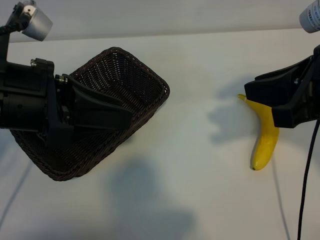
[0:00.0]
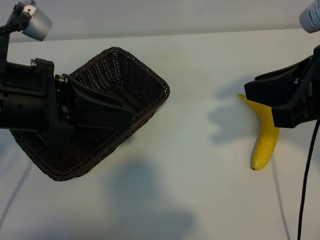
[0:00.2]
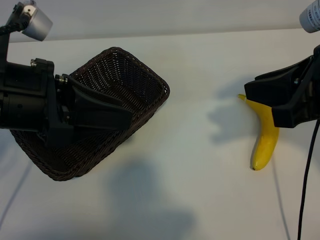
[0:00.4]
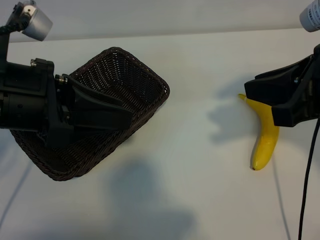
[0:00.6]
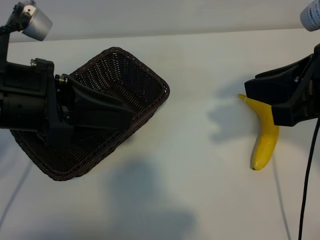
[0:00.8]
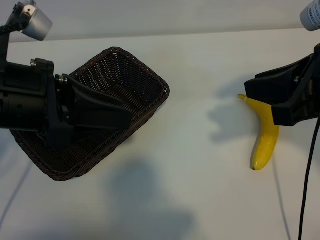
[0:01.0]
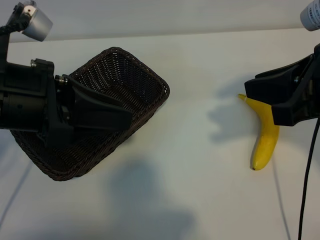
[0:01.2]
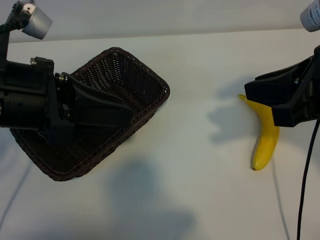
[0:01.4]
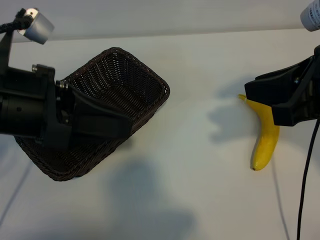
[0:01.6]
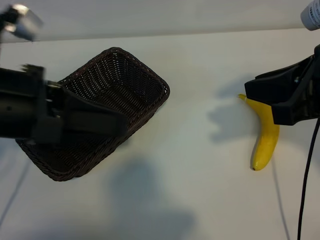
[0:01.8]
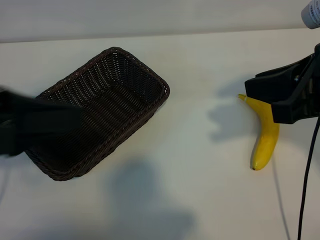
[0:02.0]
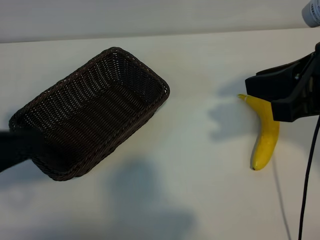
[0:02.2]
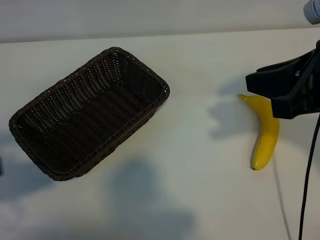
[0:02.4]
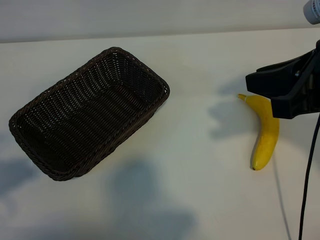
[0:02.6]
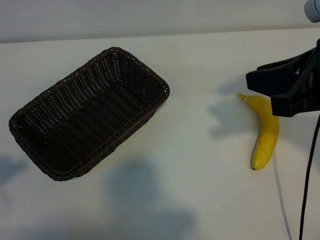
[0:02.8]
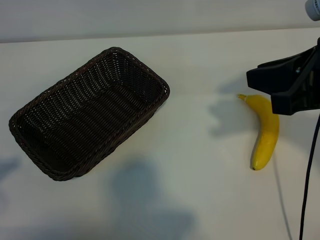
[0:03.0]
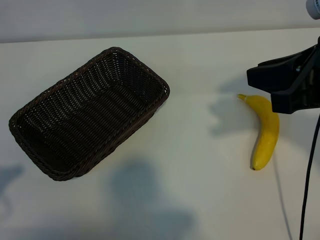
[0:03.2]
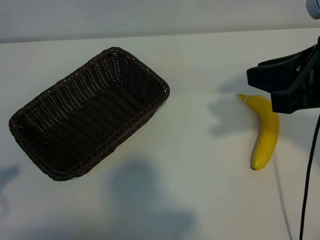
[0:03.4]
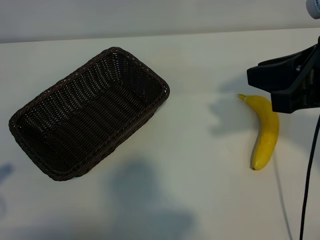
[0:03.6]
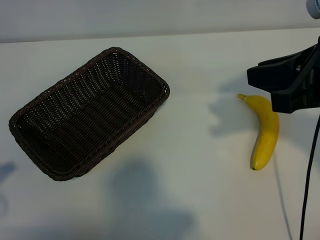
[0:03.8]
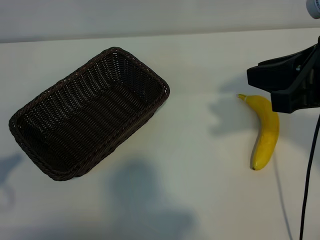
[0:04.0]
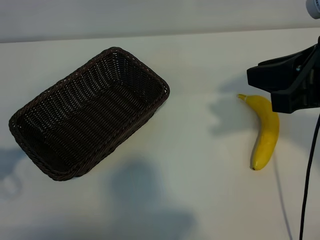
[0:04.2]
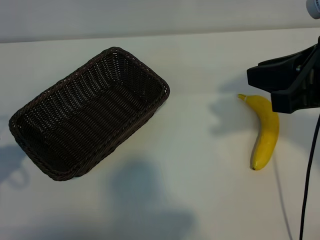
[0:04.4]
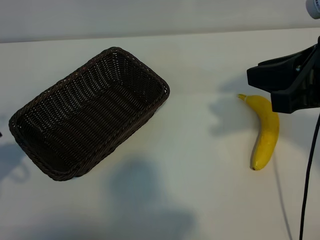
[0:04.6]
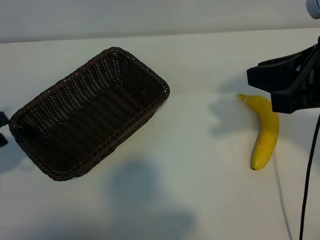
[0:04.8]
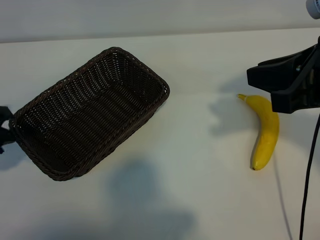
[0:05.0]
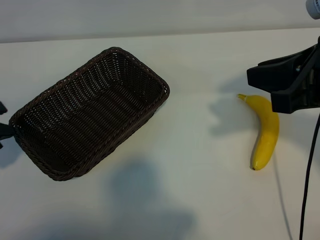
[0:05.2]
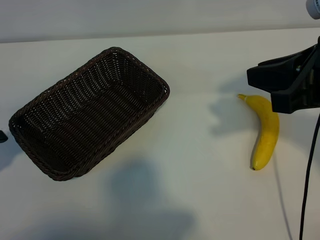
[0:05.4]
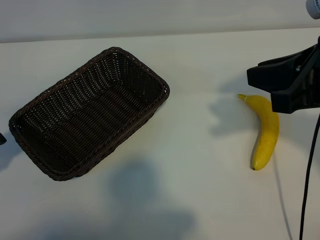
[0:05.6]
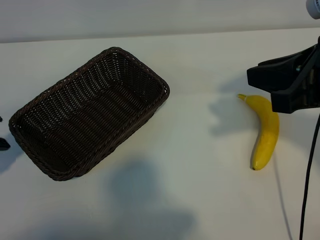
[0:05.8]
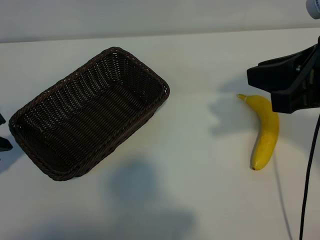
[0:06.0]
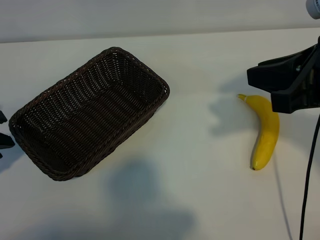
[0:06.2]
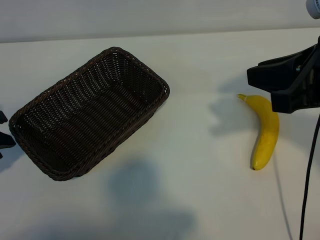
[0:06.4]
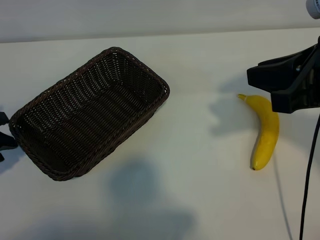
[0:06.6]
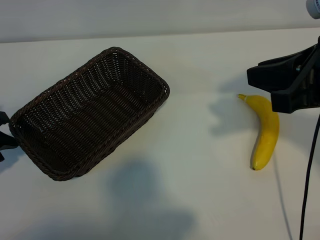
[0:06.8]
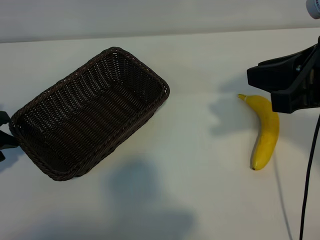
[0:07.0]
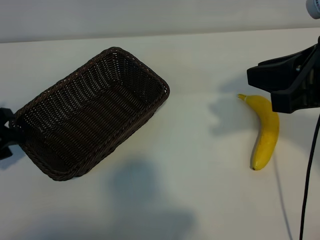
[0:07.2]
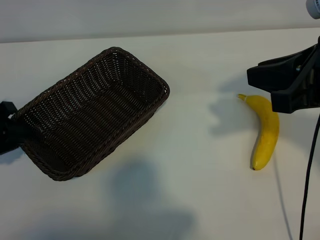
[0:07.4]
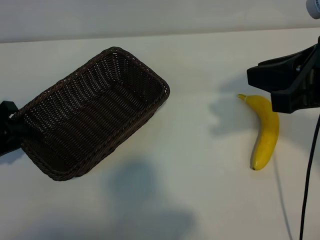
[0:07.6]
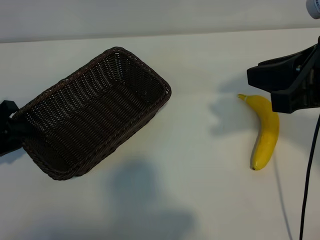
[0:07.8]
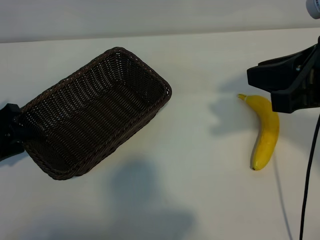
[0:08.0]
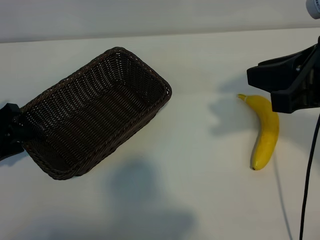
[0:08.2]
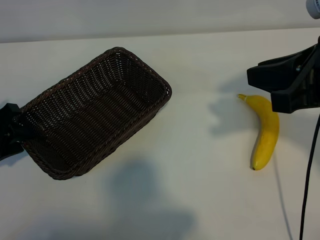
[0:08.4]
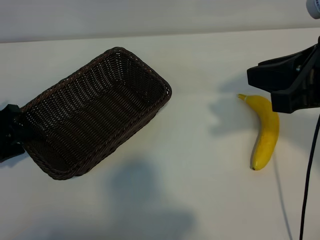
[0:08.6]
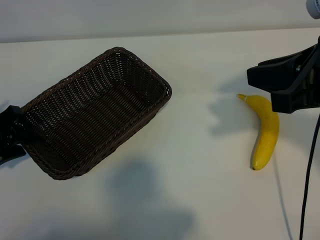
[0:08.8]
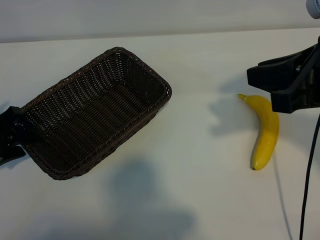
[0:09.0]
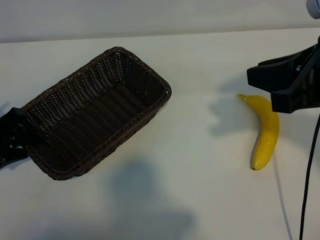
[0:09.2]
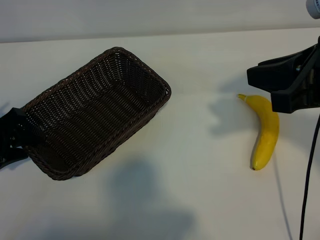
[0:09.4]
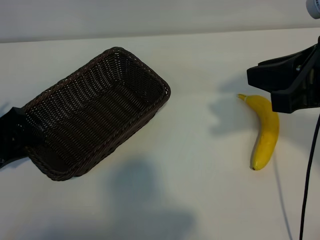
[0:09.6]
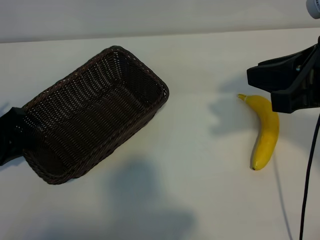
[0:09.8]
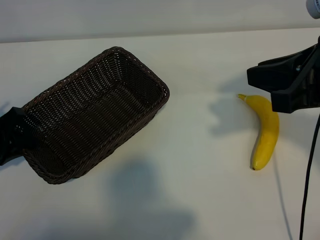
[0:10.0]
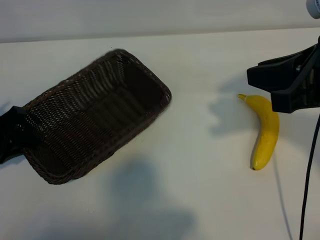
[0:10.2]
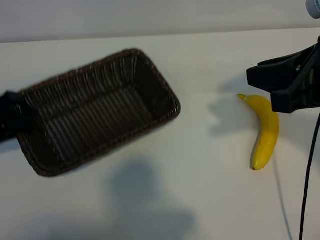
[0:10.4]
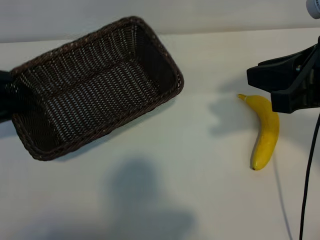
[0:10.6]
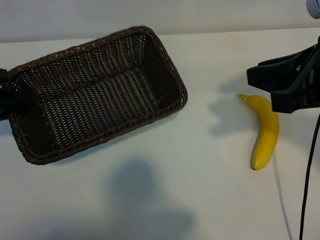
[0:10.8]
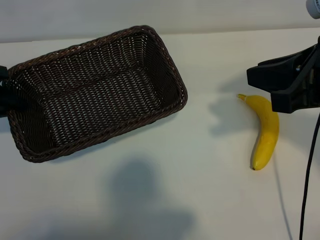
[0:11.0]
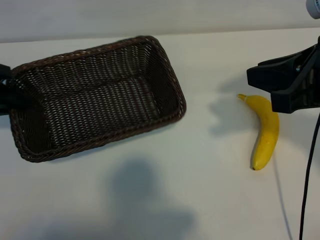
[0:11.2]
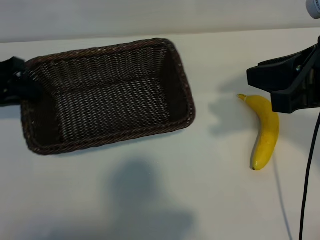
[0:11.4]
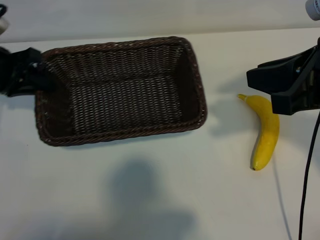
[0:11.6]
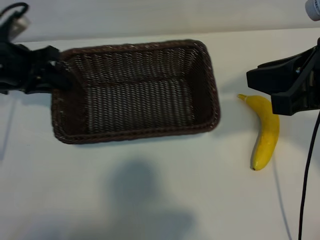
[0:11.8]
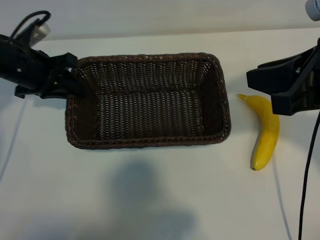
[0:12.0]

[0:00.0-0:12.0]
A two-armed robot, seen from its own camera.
Task of the whole recording: pick up the banana and put it into the basket.
Step, 0:00.6 to 0:09.8: Grasp the basket with the left gripper.

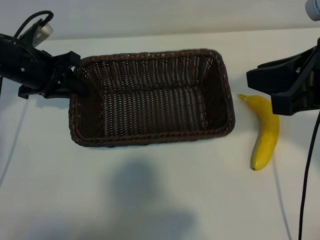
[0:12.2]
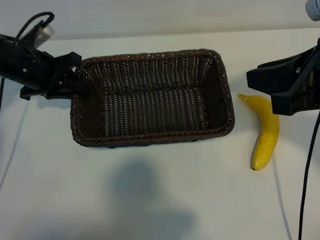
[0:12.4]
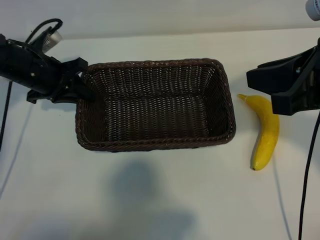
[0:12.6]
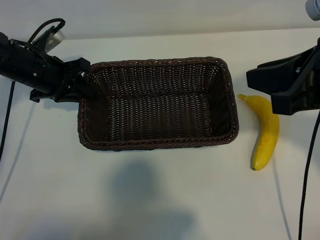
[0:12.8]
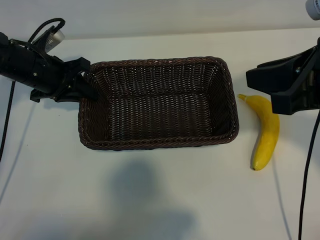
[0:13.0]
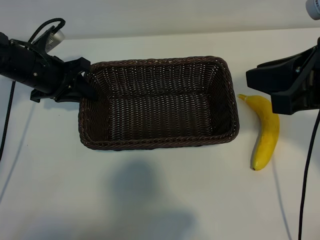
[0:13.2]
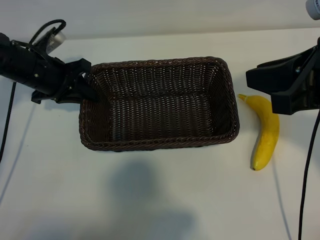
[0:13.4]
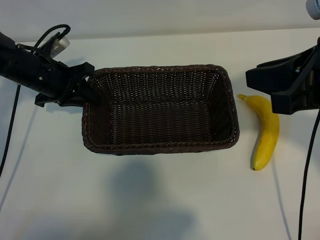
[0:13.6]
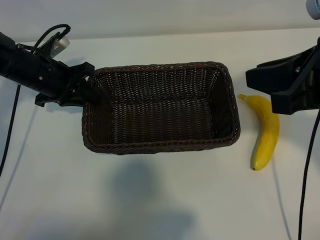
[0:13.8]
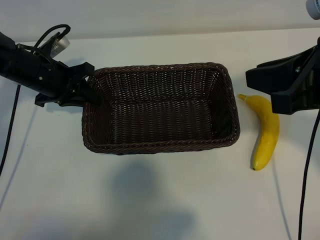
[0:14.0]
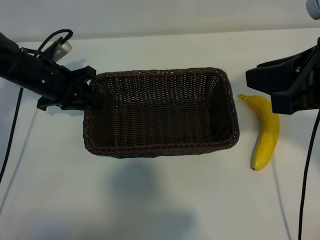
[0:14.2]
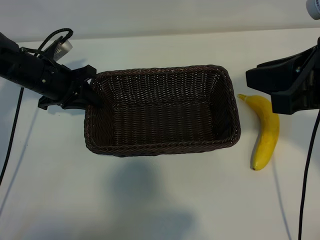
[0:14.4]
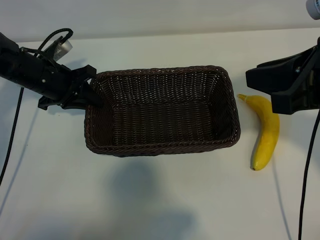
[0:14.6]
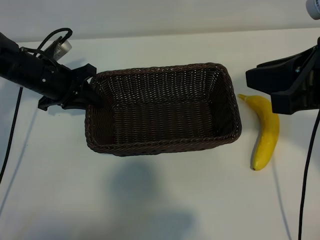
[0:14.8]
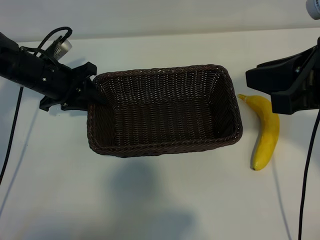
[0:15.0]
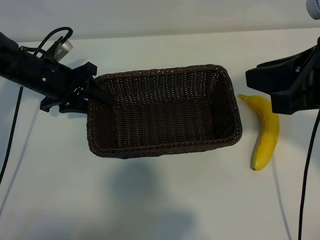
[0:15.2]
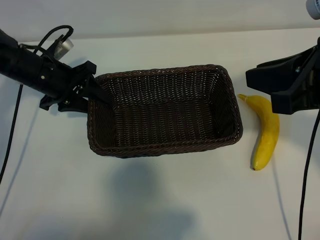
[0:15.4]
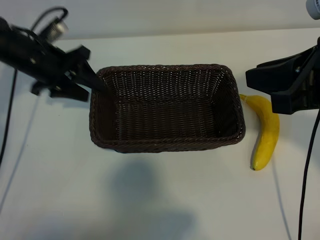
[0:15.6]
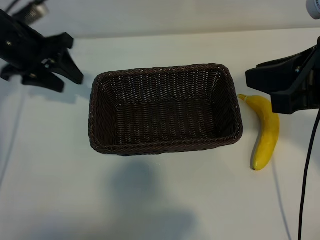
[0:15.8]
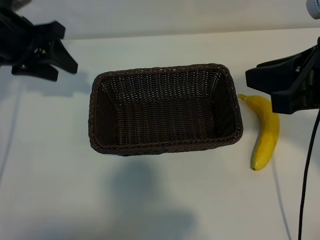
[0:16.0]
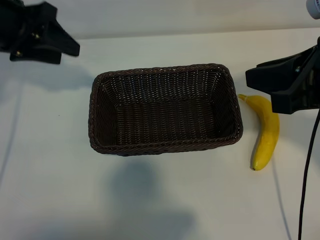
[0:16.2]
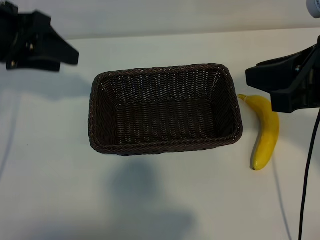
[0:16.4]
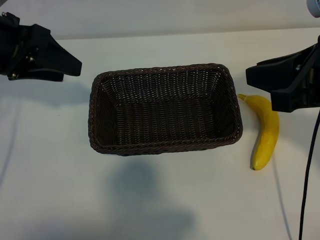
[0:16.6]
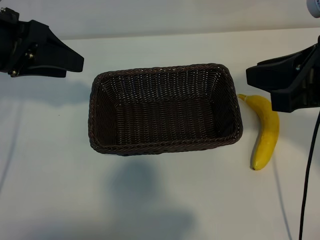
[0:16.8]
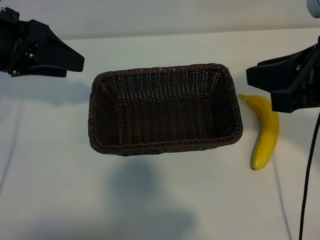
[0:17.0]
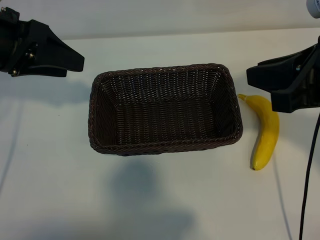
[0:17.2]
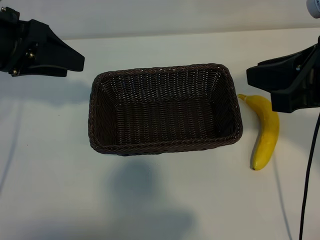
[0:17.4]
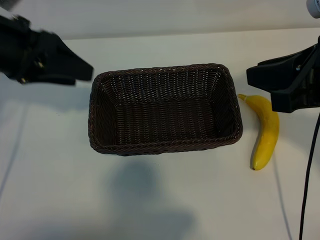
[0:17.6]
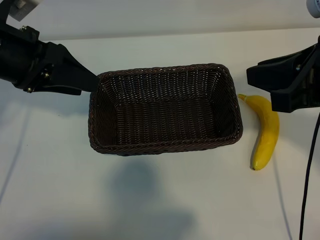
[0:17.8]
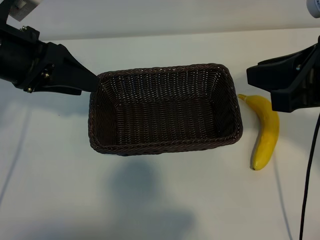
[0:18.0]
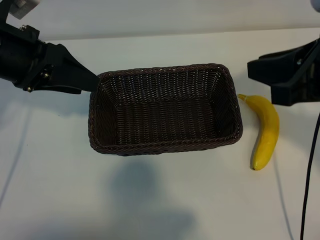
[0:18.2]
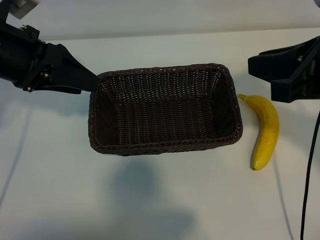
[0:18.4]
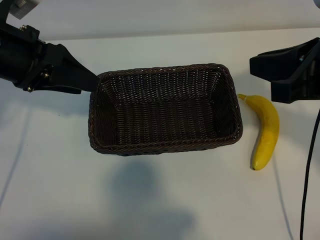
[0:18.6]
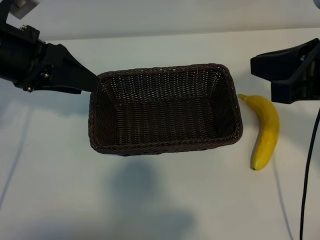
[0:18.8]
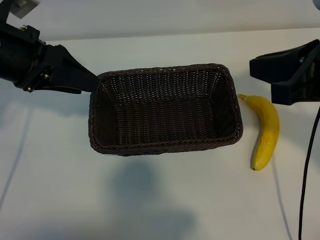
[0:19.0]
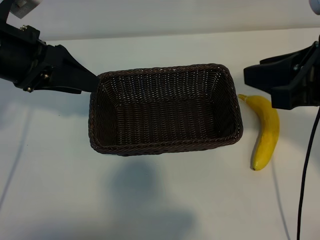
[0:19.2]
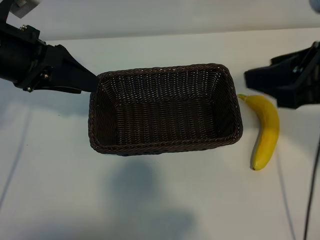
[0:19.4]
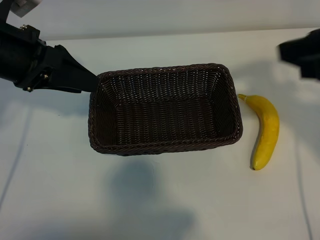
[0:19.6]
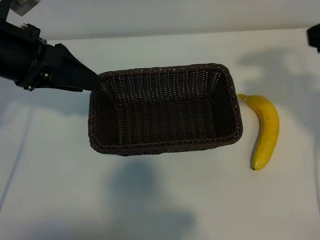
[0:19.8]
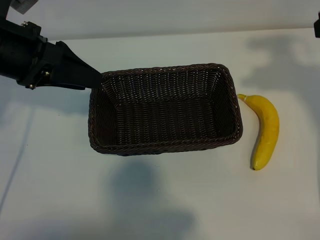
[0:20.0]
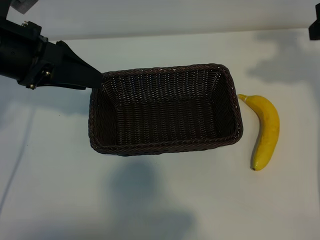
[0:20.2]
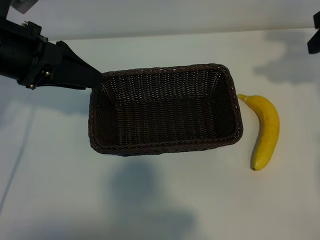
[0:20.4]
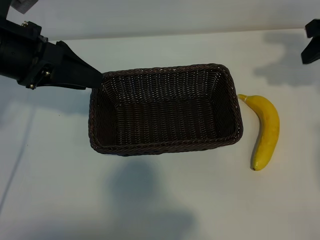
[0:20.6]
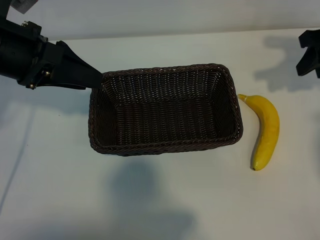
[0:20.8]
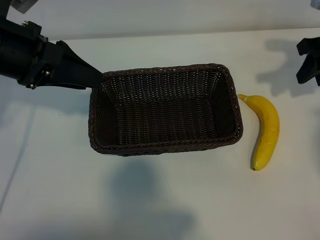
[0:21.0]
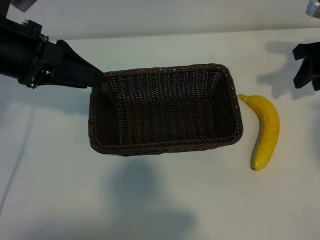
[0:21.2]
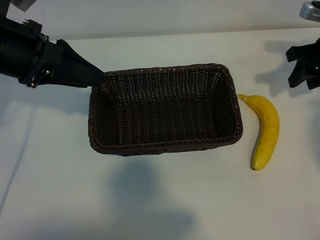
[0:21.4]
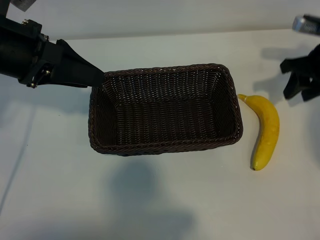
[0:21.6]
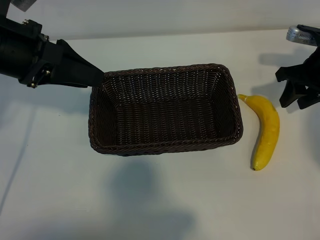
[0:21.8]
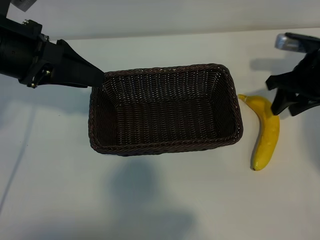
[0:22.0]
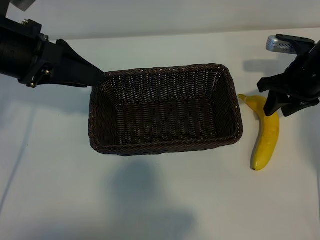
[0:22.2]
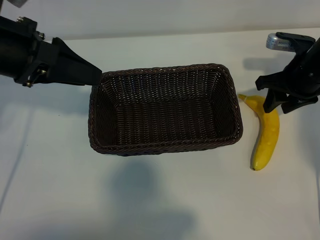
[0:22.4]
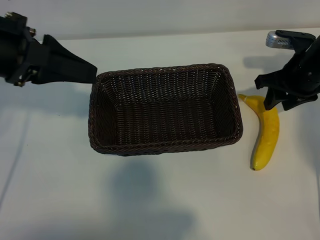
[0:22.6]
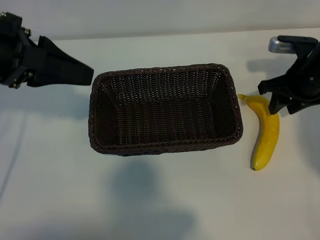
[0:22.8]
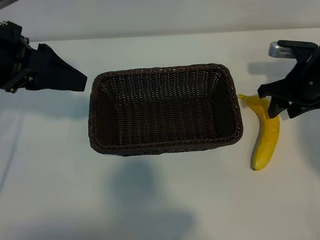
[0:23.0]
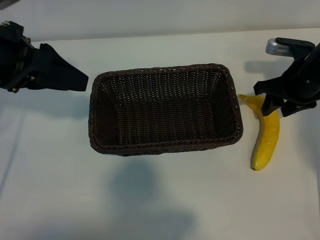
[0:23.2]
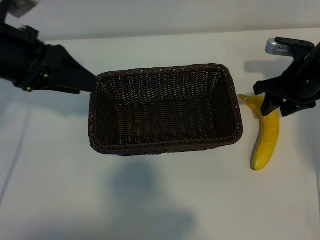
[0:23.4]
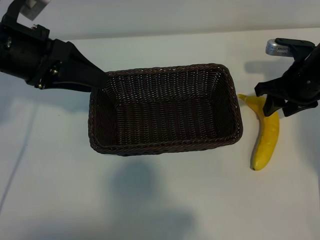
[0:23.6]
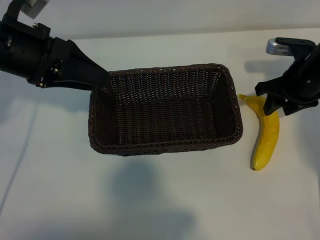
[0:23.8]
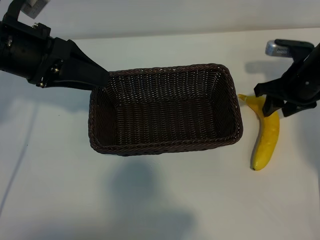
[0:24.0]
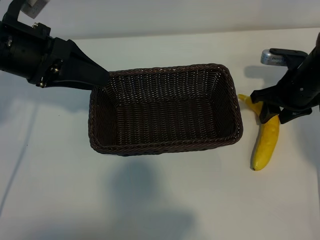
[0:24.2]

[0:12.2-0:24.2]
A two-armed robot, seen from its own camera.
Task of the whole recording: pick up the banana and put it into the basket.
Step, 0:12.2 to 0:15.6: Place the basket in the center of the table with the left gripper.
